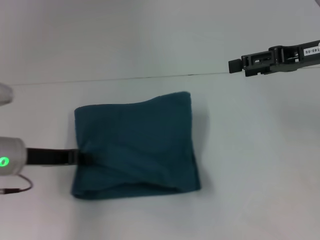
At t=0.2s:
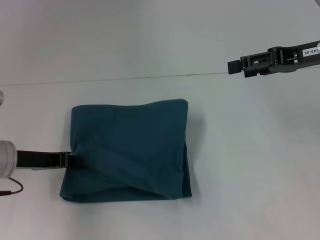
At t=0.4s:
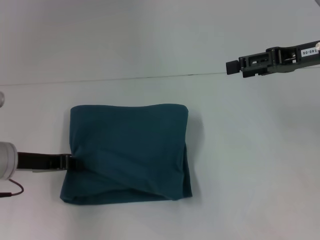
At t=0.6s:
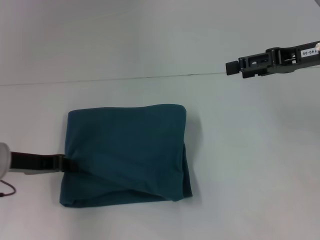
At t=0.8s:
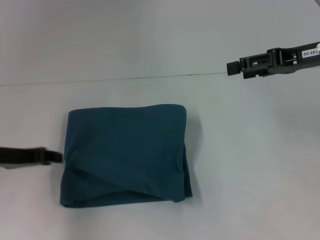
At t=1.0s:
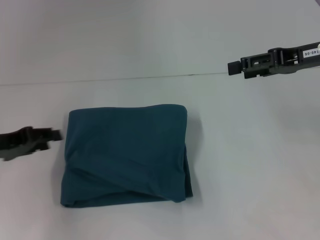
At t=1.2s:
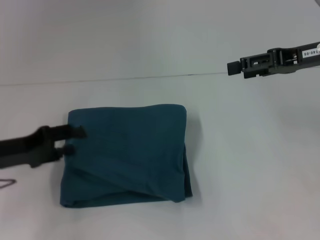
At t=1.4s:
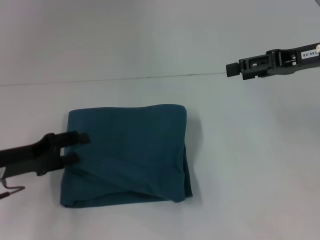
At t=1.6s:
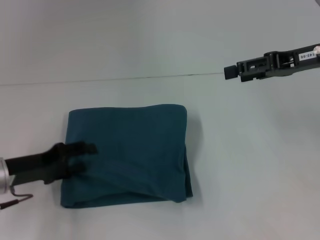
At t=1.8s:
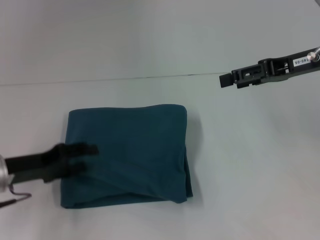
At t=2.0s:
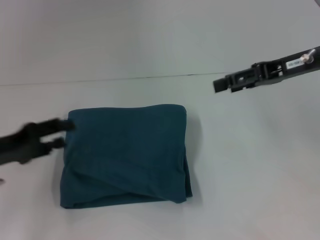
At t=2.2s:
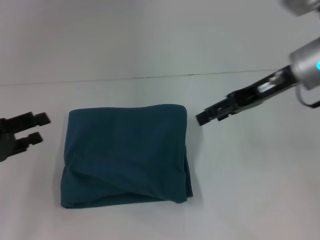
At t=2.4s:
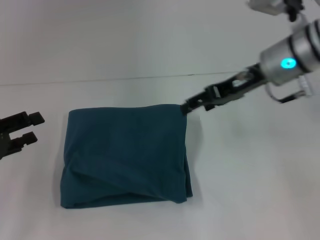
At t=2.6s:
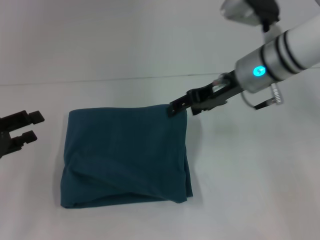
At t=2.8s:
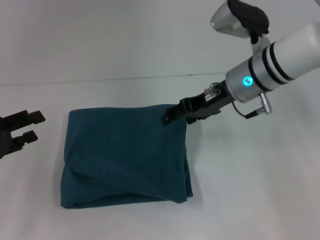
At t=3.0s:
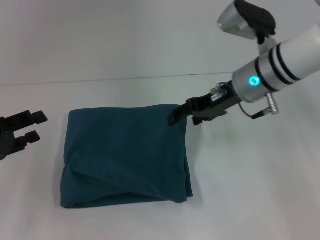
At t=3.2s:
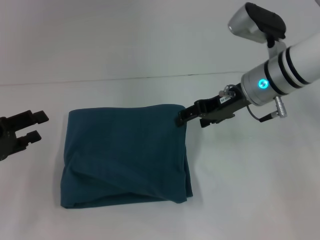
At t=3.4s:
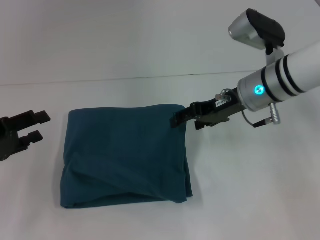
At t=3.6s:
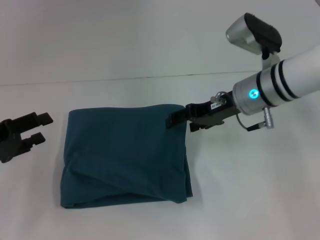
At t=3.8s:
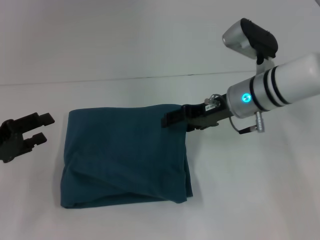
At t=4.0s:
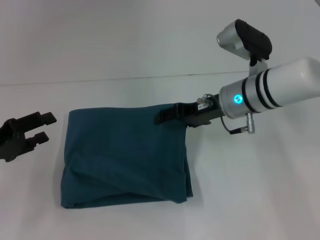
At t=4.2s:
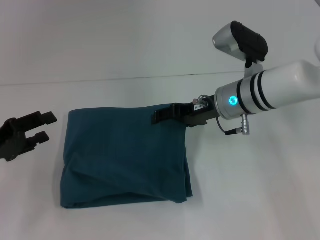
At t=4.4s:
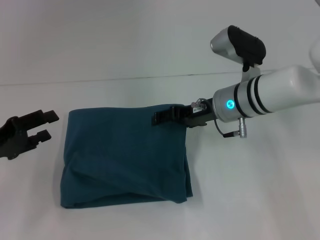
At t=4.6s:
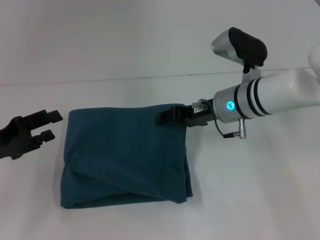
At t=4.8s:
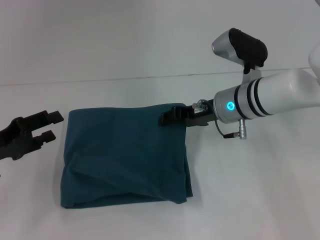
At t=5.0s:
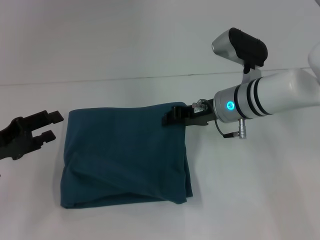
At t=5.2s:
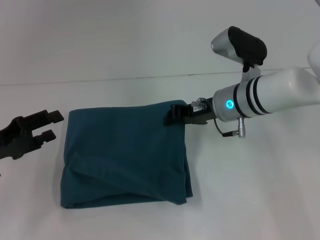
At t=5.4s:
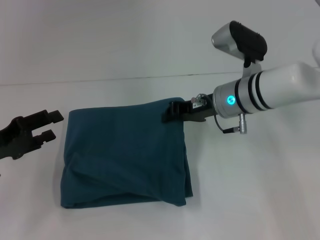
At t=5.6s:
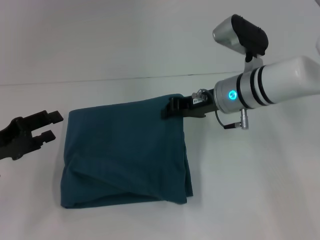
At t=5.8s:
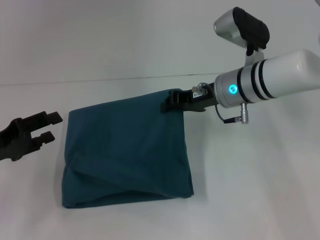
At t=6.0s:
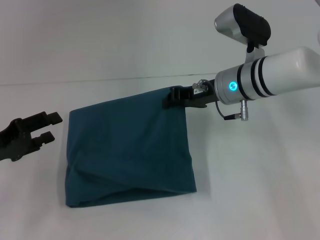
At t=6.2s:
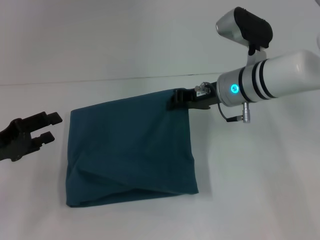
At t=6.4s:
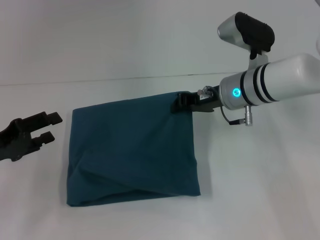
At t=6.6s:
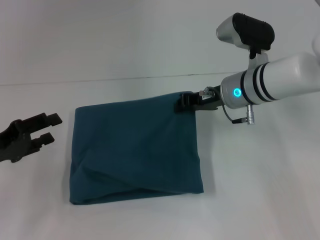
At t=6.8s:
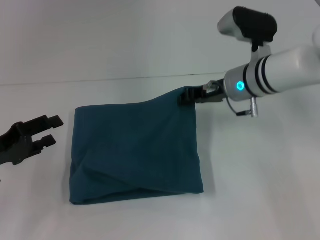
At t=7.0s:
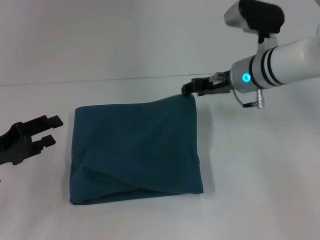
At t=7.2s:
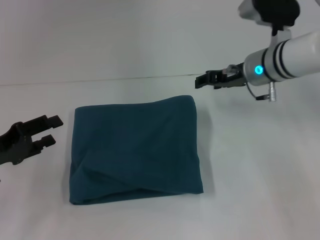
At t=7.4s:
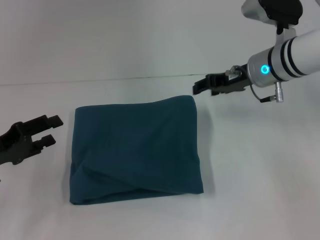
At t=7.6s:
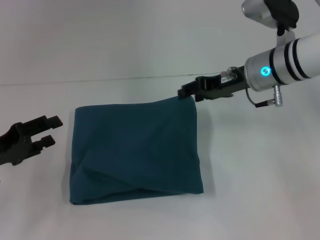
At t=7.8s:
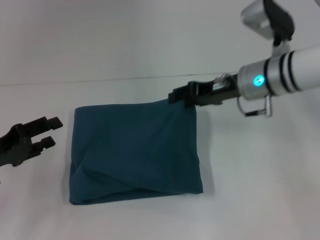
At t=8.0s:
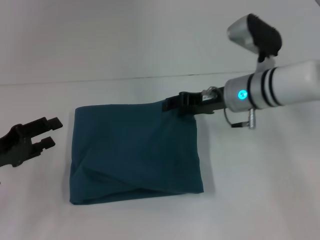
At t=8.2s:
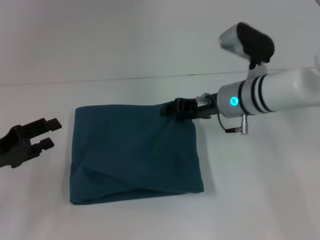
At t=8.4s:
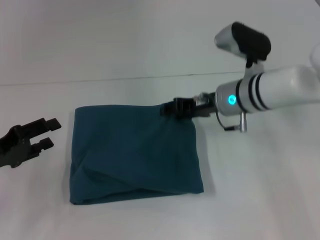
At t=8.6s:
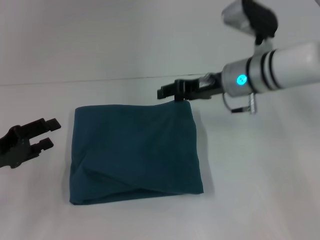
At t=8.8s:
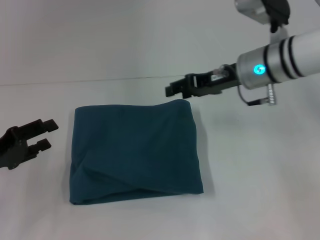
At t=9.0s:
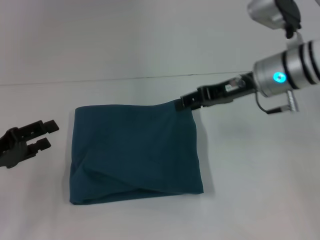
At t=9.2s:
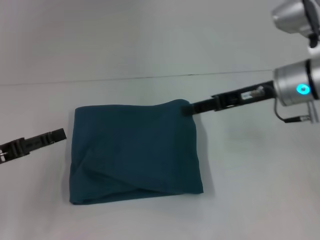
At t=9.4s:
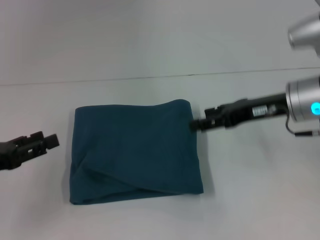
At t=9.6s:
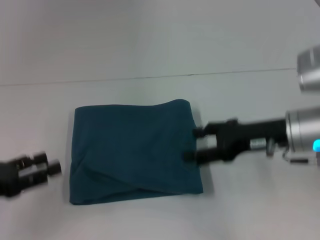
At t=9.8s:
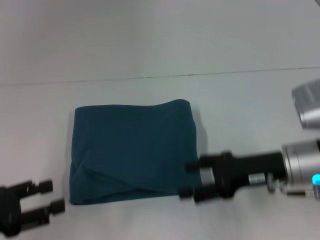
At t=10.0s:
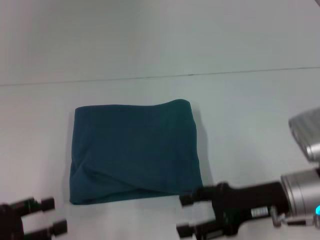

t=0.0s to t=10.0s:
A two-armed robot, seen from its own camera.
t=0.0s to t=1.4s: The left gripper opens its fingers.
t=1.4s to t=2.8s: The right gripper shifts roughly 15 cm to the left and downward, while the left gripper moves to the left, roughly 5 cm.
t=2.8s to t=4.2s: The grippers stay close to where they were, moving slightly.
t=4.2s to t=5.8s: The right gripper closes up.
t=5.8s to t=7.2s: The right gripper ends up roughly 5 cm from where it was, and opens its fingers.
t=8.6s to t=10.0s: The left gripper heads backward, covering approximately 10 cm; the right gripper travels backward and downward by about 15 cm.

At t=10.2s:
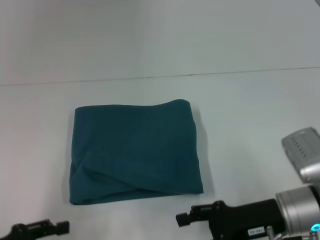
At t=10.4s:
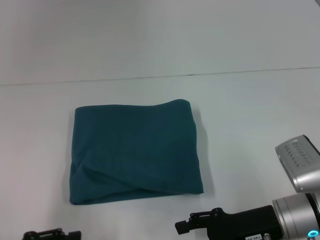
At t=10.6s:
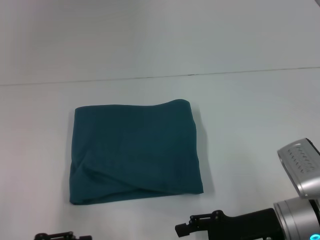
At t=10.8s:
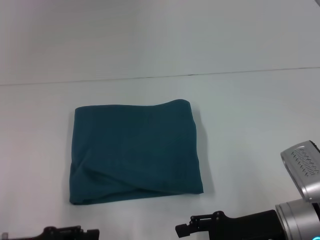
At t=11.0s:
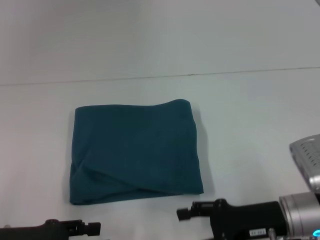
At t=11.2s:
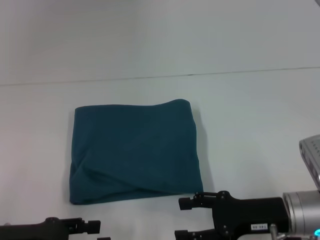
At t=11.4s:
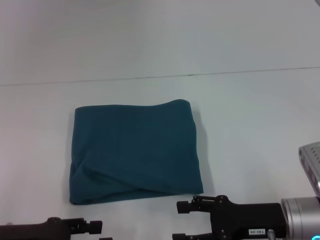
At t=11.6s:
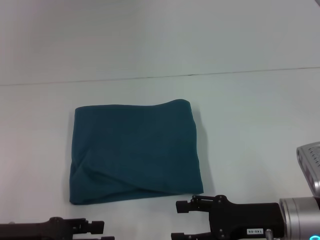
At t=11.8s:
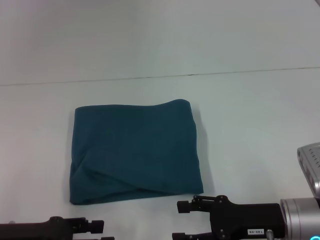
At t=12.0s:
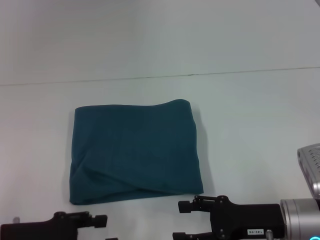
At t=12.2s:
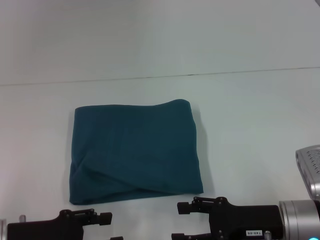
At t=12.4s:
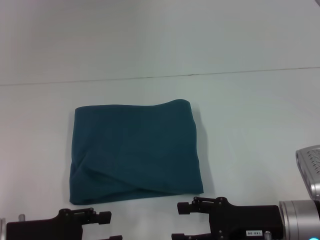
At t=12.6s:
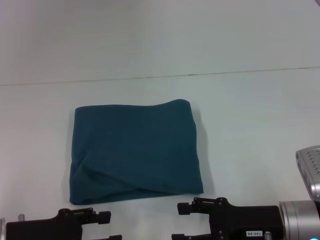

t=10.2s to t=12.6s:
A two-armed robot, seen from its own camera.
t=10.2s to t=11.4s: The left gripper changes place by approximately 5 cm.
t=11.4s to t=12.6s: The grippers stay close to where they were, moving slightly.
